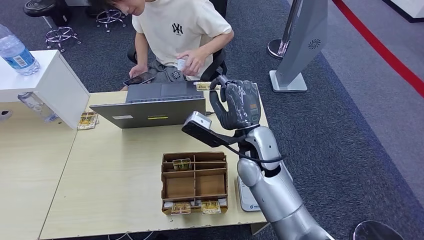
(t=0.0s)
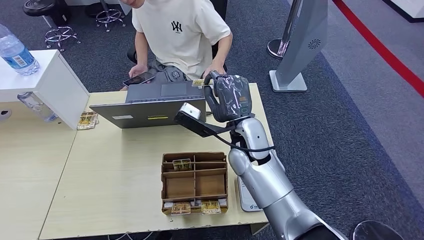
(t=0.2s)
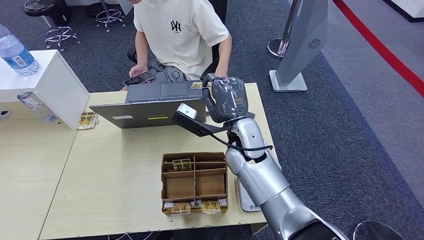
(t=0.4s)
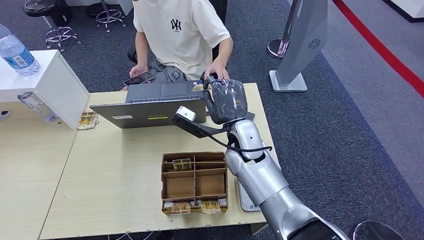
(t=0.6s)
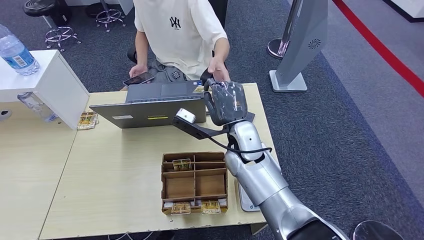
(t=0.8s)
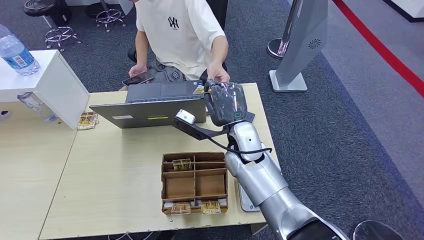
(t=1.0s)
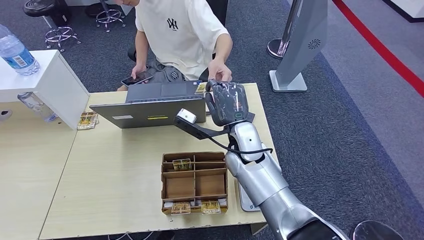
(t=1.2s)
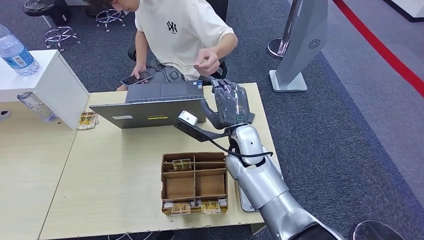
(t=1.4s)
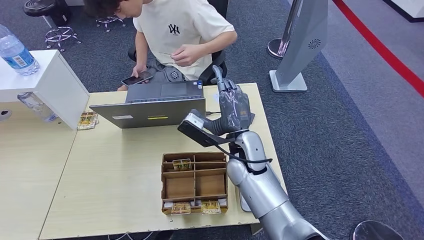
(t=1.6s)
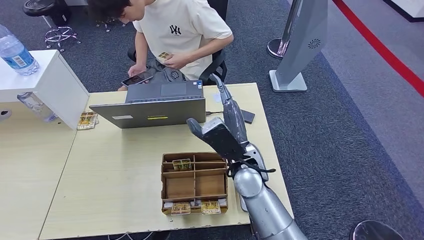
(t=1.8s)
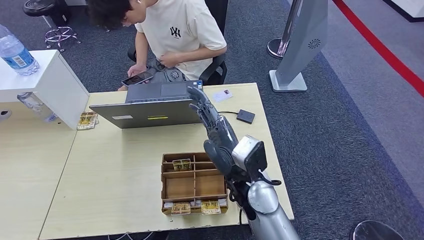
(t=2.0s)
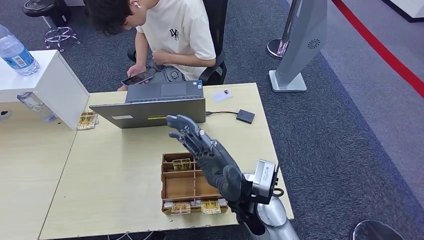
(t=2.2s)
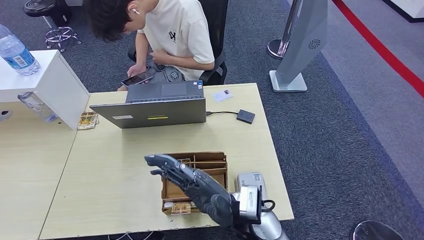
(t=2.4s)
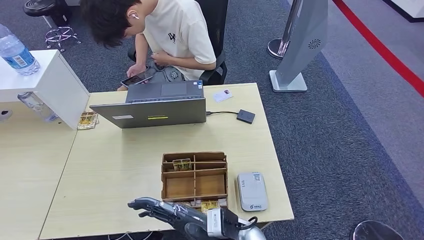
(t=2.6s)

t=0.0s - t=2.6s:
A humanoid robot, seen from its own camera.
Step, t=0.0s - t=2.6s: Hand the room key to the person.
t=0.0s - t=1.2s: The right hand changes place by approximately 5 cm.
t=1.2s - t=2.6s: The right hand travels backward and downward by about 20 cm.
